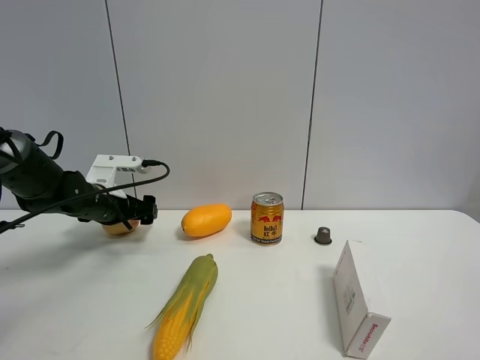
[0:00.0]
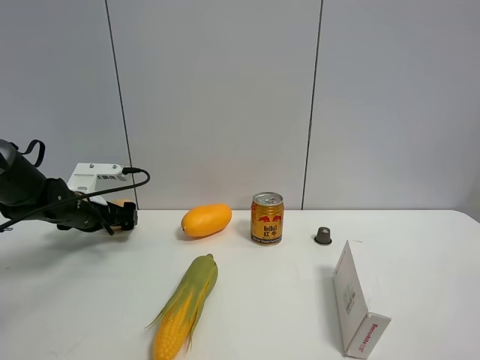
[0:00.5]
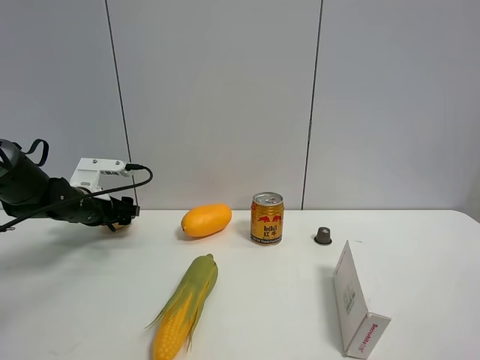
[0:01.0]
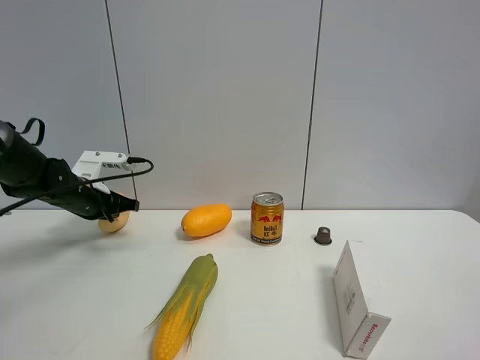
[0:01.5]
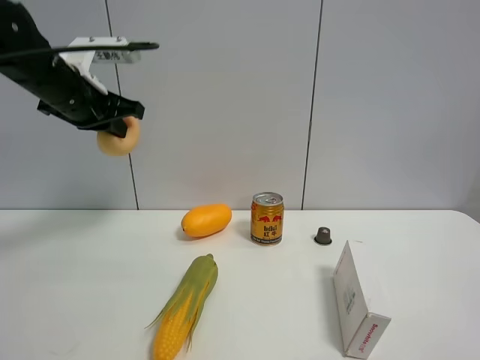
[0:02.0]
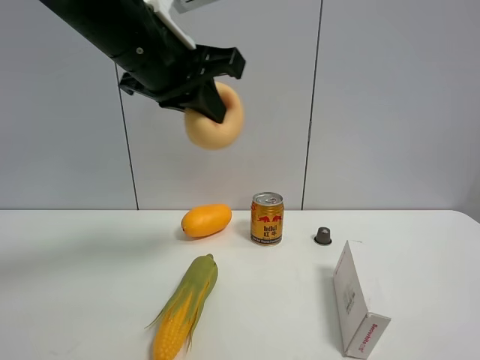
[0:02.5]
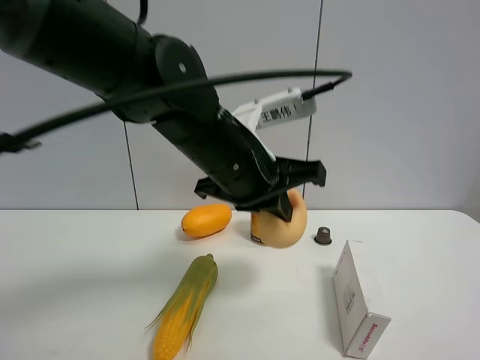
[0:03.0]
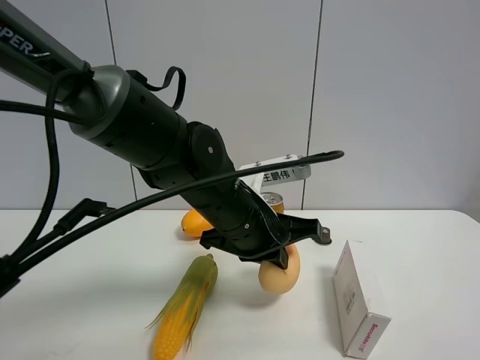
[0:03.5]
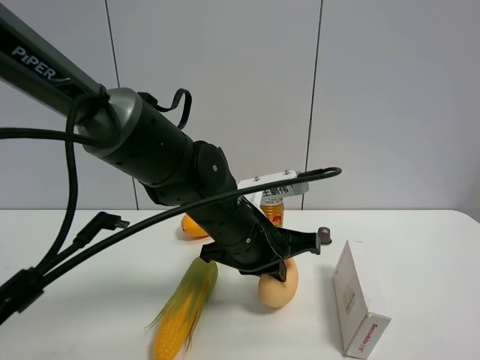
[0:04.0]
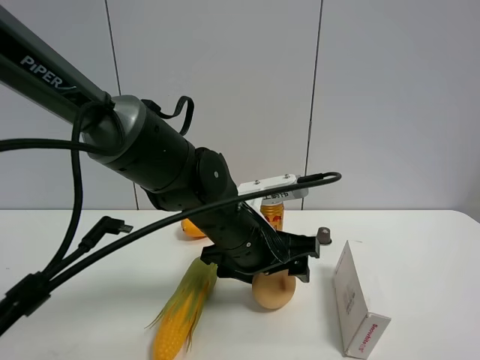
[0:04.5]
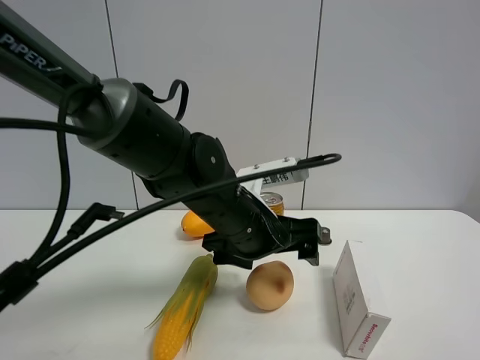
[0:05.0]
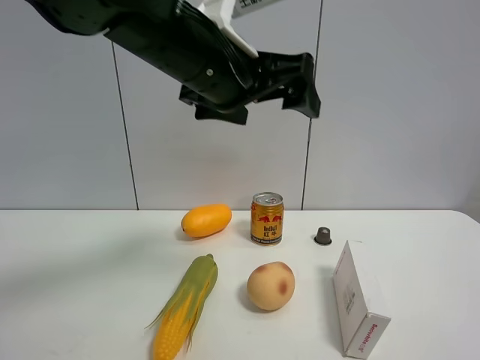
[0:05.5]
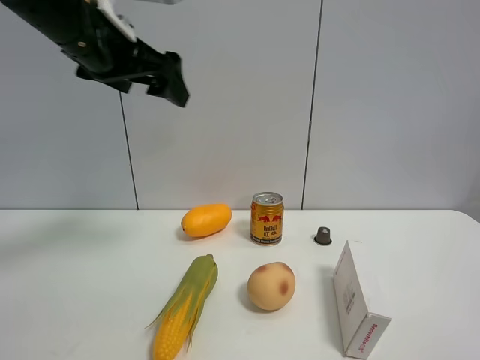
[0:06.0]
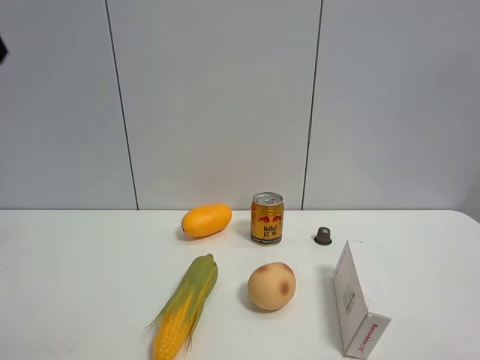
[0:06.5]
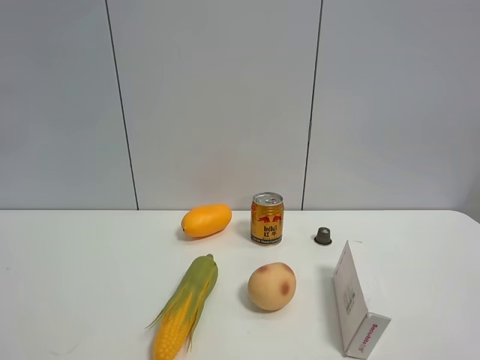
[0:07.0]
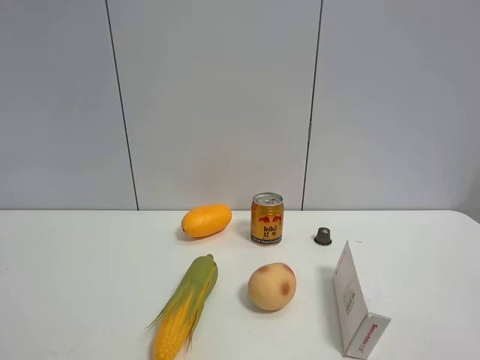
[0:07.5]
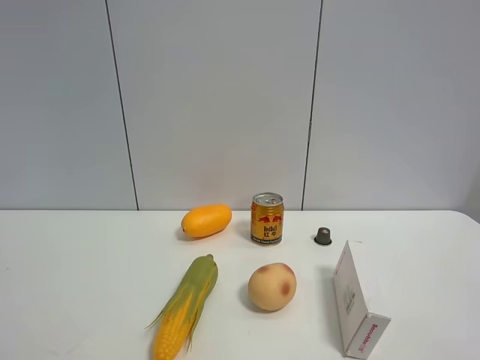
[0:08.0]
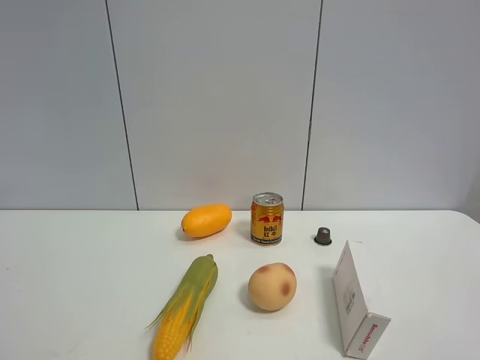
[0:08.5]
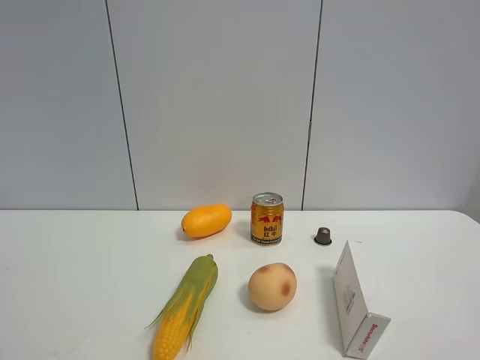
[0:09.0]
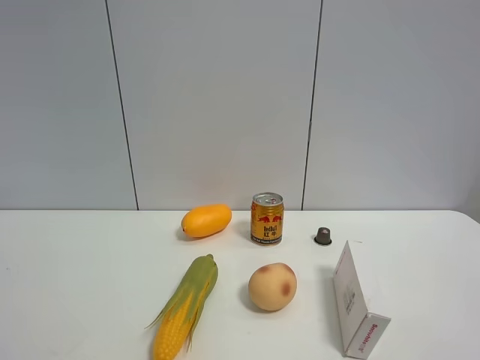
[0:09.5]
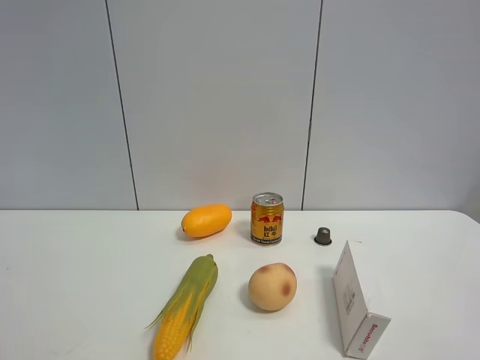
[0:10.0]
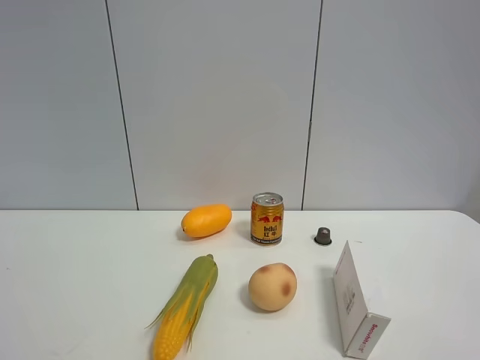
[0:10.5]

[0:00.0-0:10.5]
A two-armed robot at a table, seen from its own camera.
Task of the whole recording: the gripper move the object.
Step, 0:01.5 to 0:05.0: Place the egg yolk pastry on the table with the left gripper.
0:00.0 to 0:02.0: The left gripper goes roughly 20 cm upward, and closes up.
0:02.0 to 0:04.0: The left gripper is displaced to the right and downward by about 25 cm.
0:04.0 to 0:06.5: The left gripper travels to the left and upward by approximately 40 cm, and opens up.
0:08.5 to 0:10.5: Both grippers stay about where they are.

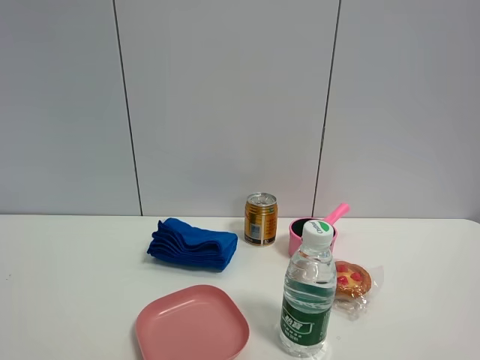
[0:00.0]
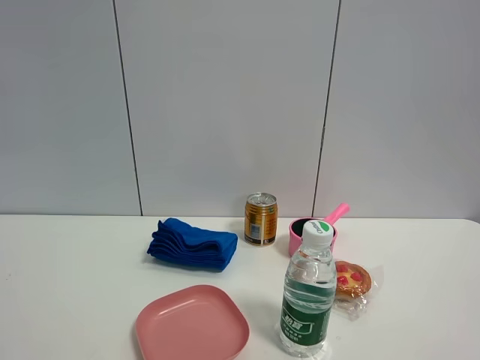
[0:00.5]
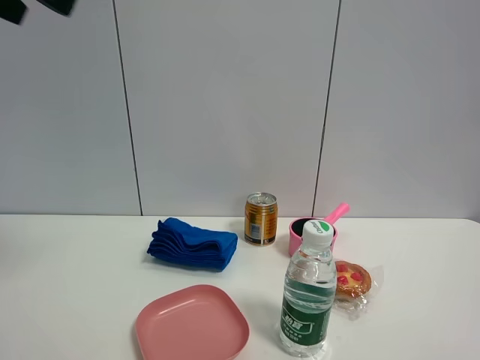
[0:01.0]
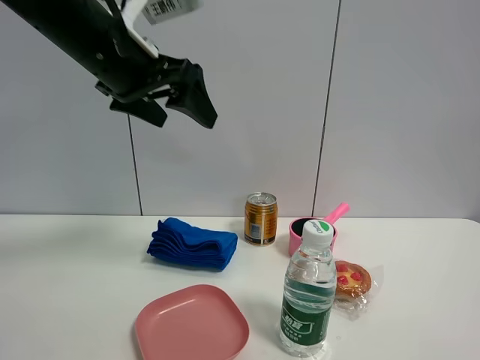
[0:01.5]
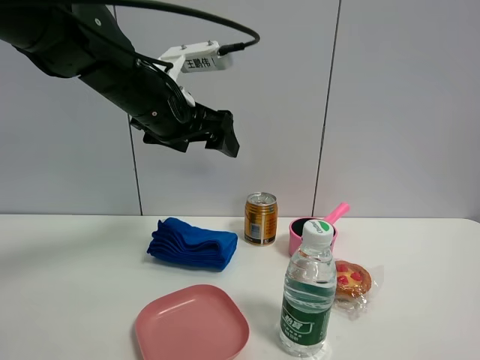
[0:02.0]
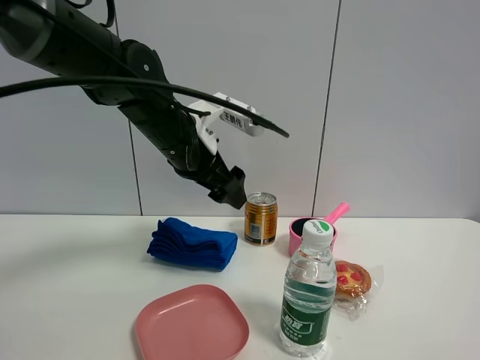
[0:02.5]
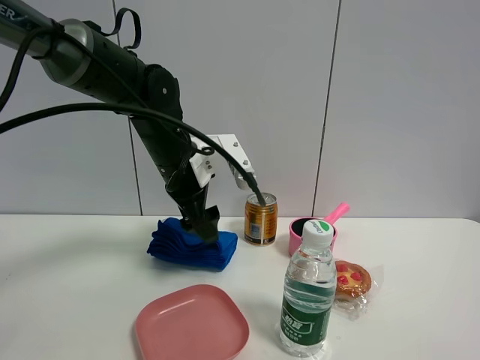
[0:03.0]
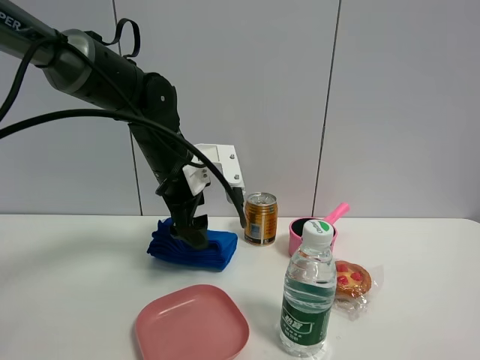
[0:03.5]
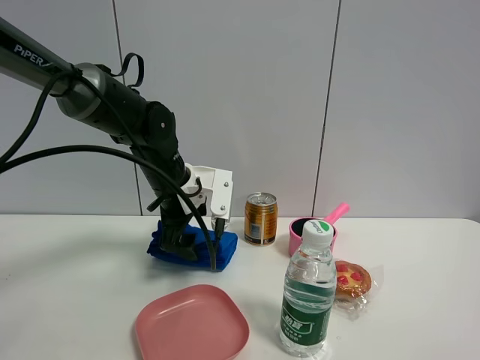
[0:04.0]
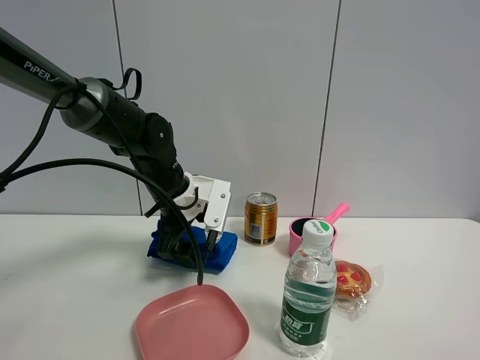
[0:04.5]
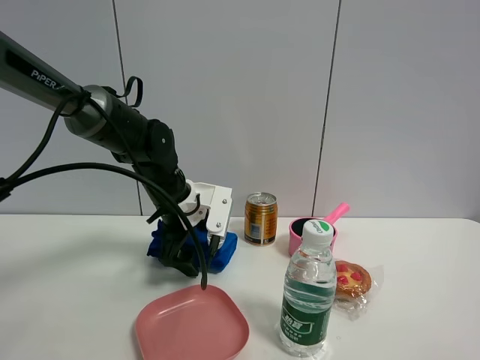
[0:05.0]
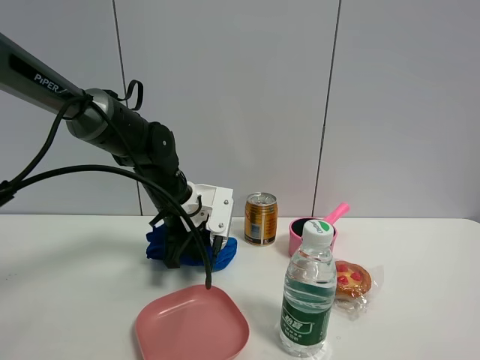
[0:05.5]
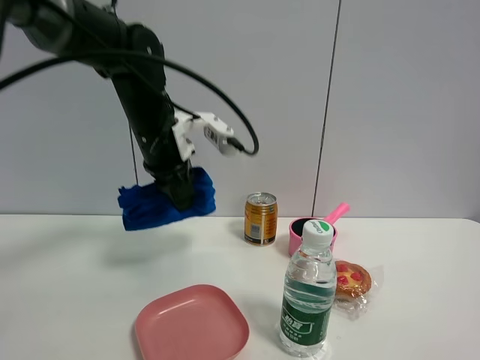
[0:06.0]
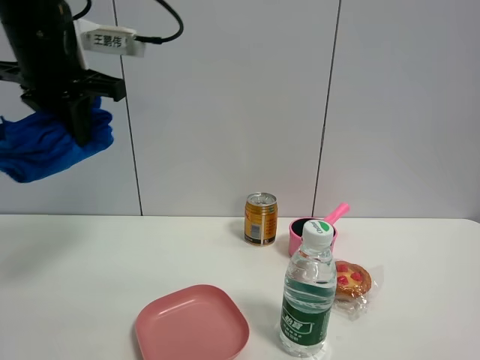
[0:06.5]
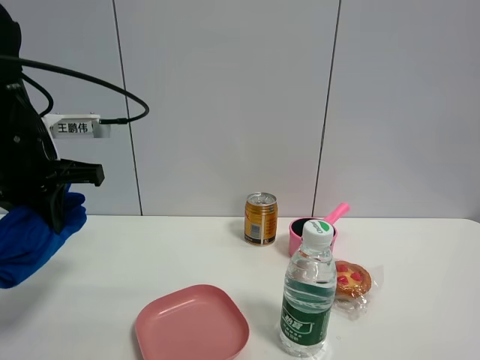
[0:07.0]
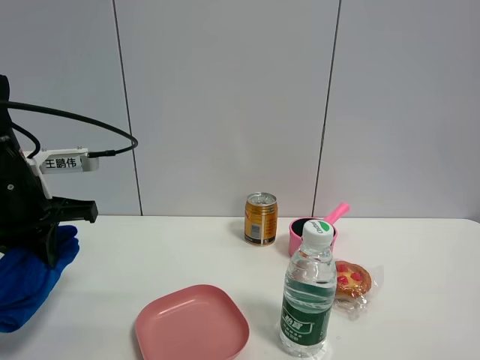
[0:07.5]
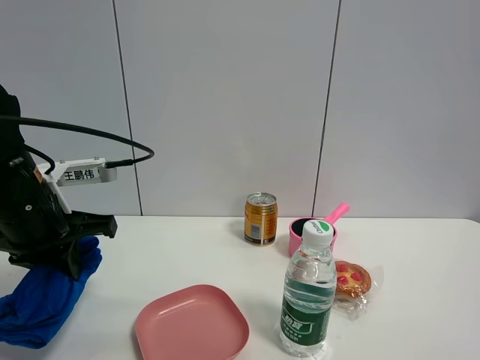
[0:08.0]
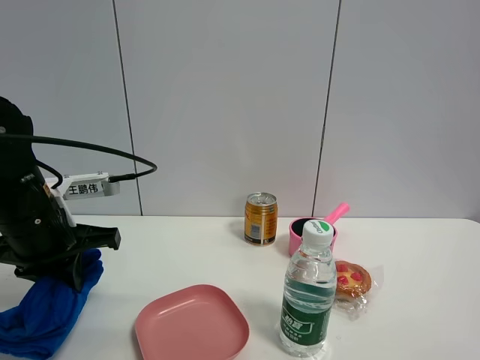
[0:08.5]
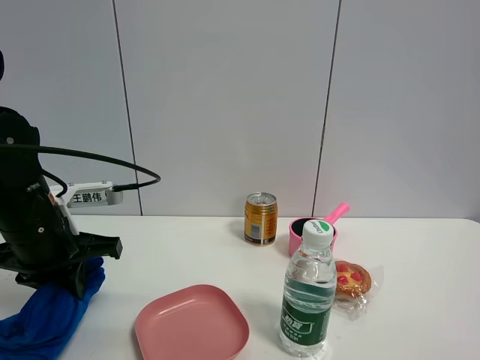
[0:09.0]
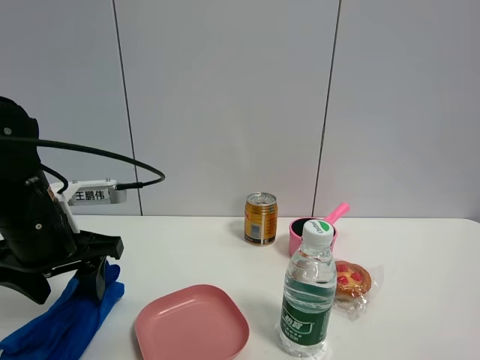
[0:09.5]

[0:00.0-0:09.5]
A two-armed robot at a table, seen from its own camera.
Task of the whole recording: the gripper move the object.
Step, 0:00.0 to 0:05.5: Grasp the blue towel with the left gripper.
Step, 0:06.0 to 0:09.0: Place the blue towel on the table with the left gripper.
0:00.0 to 0:02.0: The left gripper shifts some 40 cm forward and to the right.
0:02.0 to 0:04.0: The left gripper shifts about 15 cm downward and forward.
0:04.0 to 0:05.5: The left gripper closes.
0:05.5 to 0:07.5: The left gripper moves to the left and backward, about 20 cm, and moves about 20 cm upward and comes back.
0:07.5 to 0:09.5: The left gripper opens.

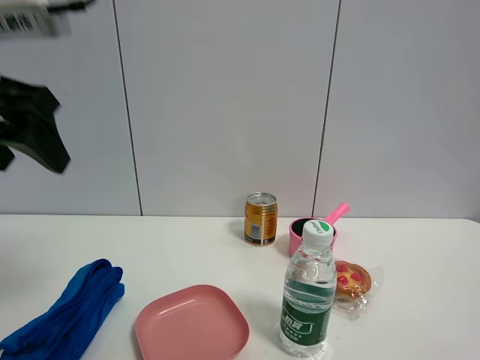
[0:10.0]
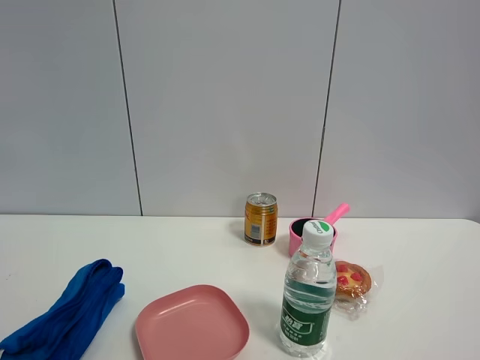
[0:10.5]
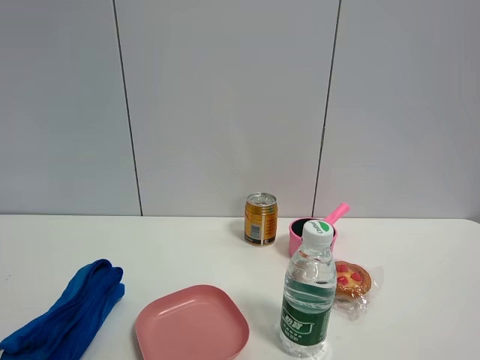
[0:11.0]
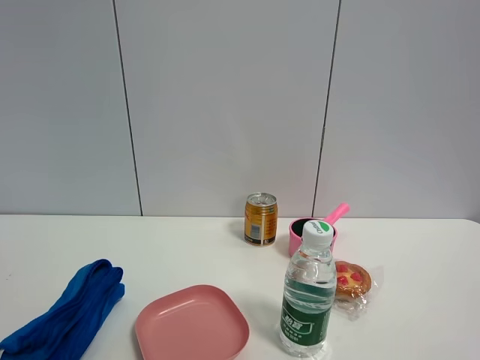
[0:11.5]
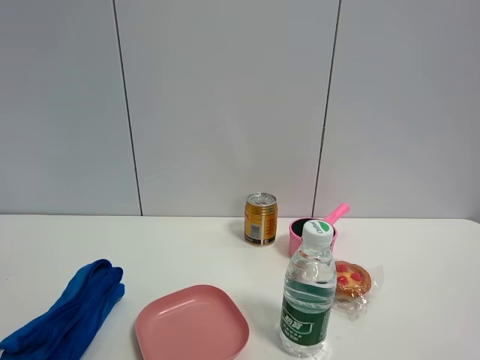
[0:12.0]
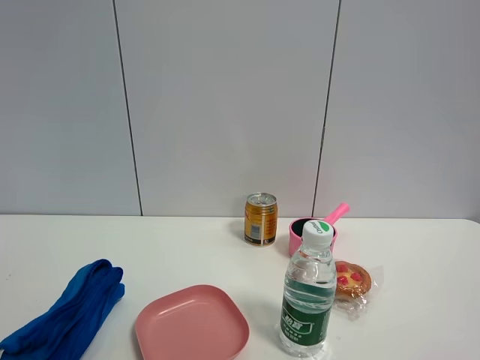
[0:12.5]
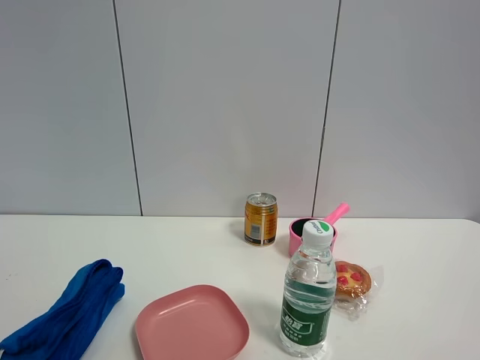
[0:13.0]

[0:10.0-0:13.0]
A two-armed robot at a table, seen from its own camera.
Task of the whole recording: the gripper move the object.
0:10.0 to 0:11.5: The left gripper travels backward by about 25 cm.

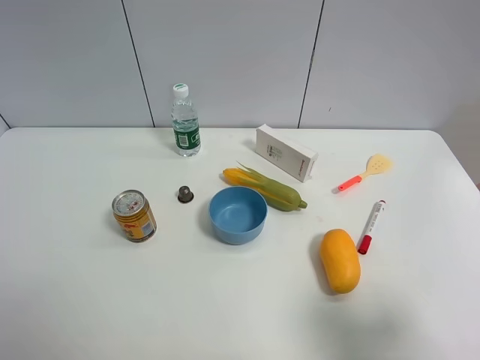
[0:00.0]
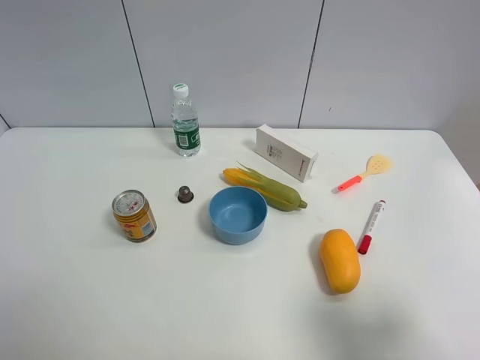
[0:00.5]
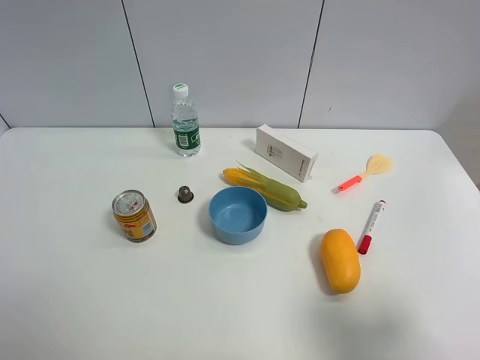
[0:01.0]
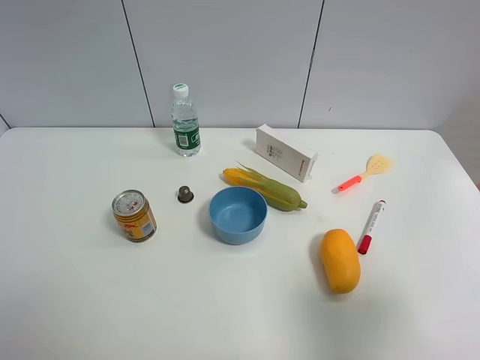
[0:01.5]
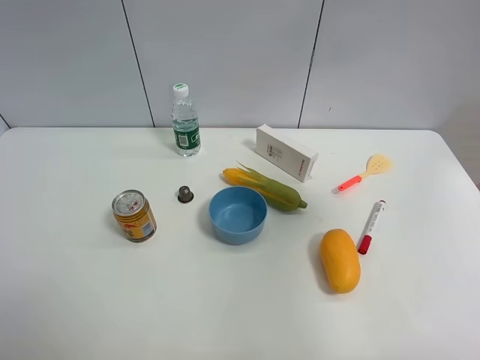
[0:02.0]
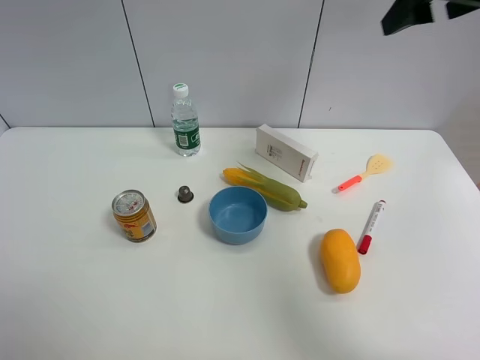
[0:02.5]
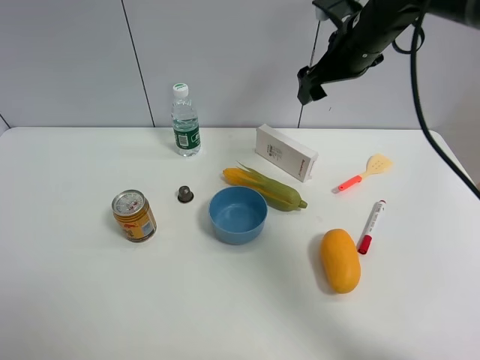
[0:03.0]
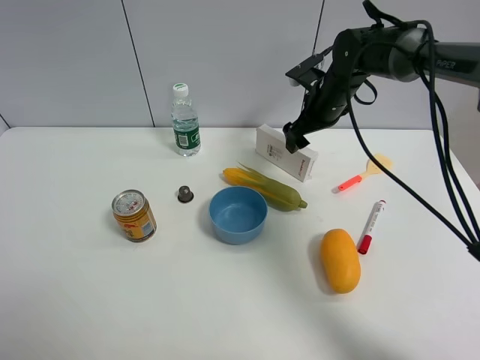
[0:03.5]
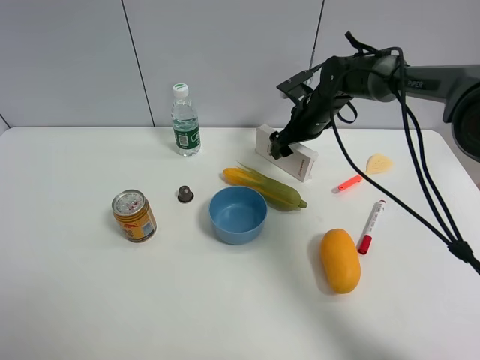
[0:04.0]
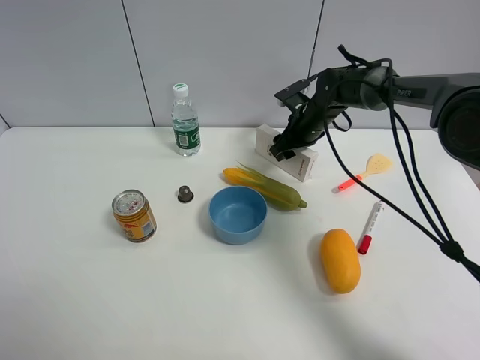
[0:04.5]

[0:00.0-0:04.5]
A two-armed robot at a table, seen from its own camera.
Task of the whole recording: the gripper move the object.
0:00.0 to 0:02.0: The right gripper travels upward and forward by some 25 cm.
0:02.0 to 0:04.5: The right gripper is displaced forward, downward and to the left by about 50 cm, and closes up.
